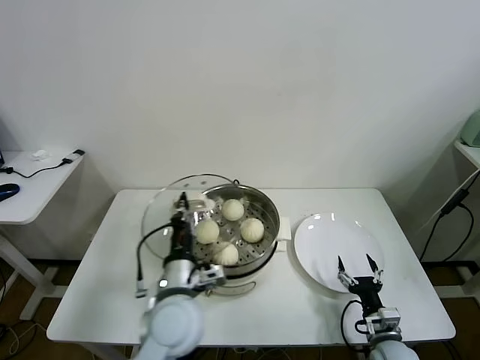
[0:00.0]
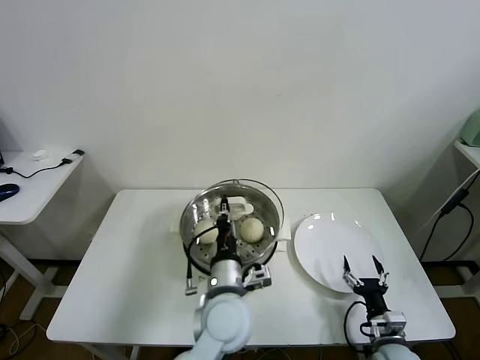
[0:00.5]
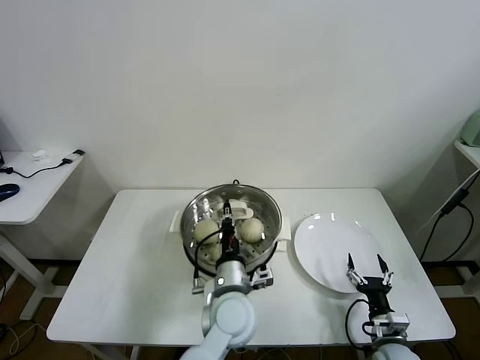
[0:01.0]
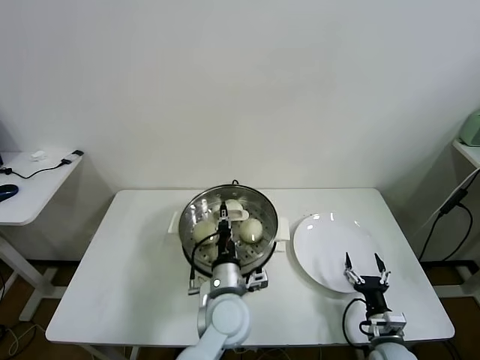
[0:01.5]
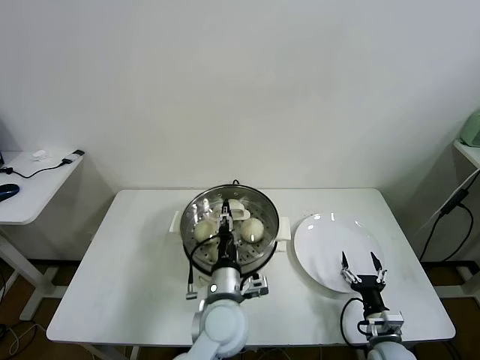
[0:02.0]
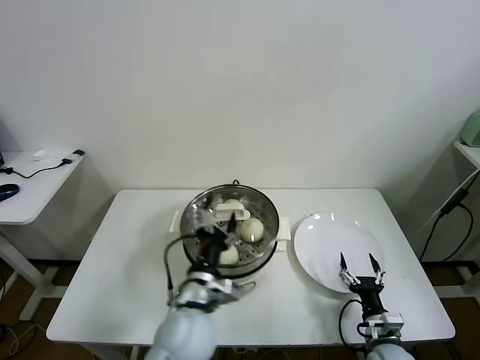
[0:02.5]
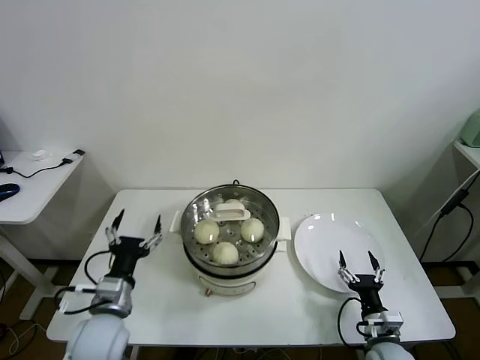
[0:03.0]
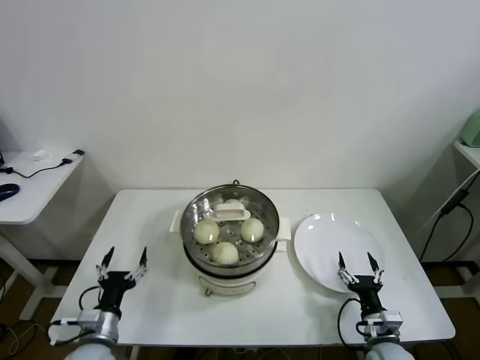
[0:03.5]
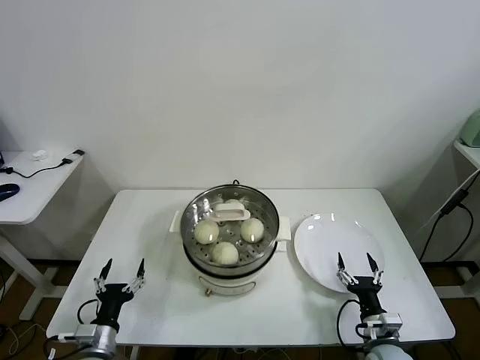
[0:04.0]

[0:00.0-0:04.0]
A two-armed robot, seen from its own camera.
Task of the whole recording: take steamed baozi put them in steamer.
0:00.0 to 0:02.0: The left gripper shifts some 10 cm to the right and downward, and opens up.
0:02.0 to 0:04.0: The left gripper goes roughly 30 cm to the left, and opens up.
